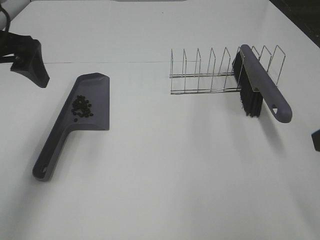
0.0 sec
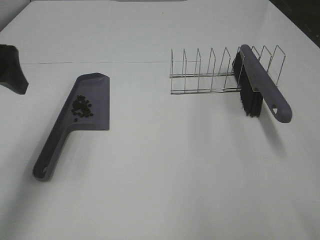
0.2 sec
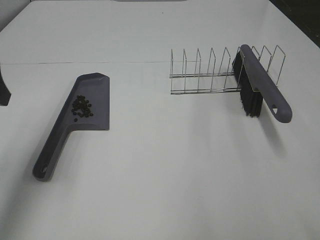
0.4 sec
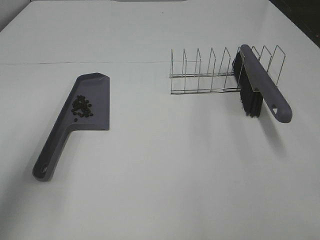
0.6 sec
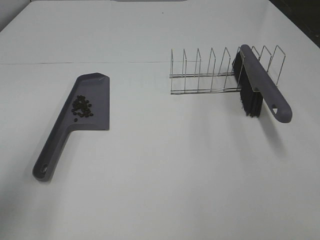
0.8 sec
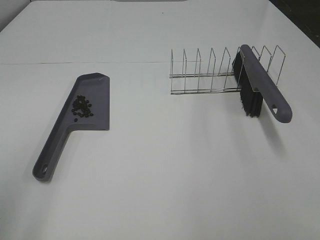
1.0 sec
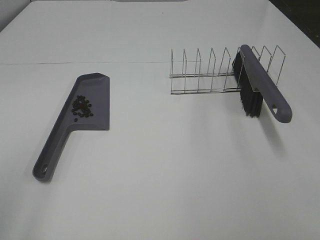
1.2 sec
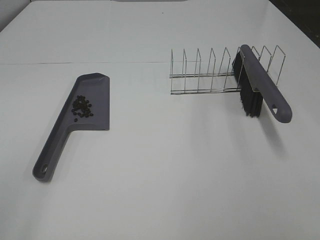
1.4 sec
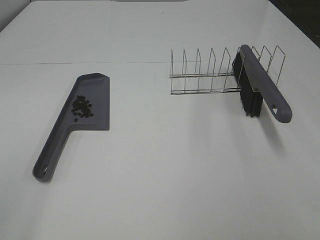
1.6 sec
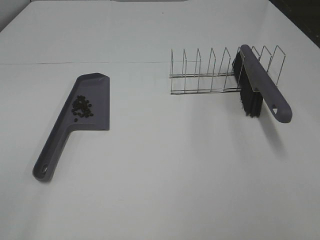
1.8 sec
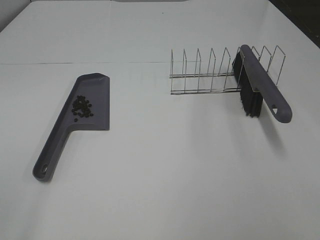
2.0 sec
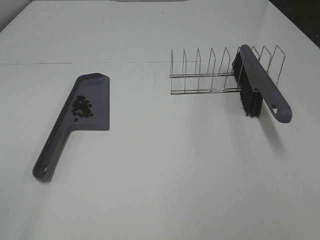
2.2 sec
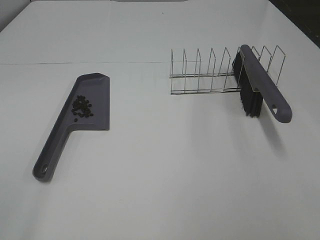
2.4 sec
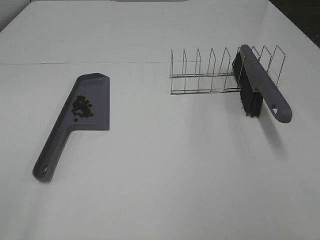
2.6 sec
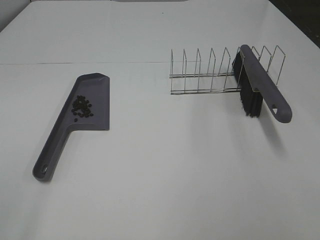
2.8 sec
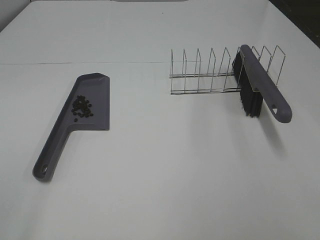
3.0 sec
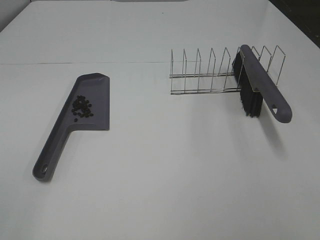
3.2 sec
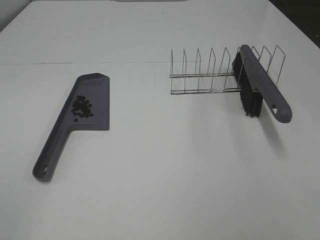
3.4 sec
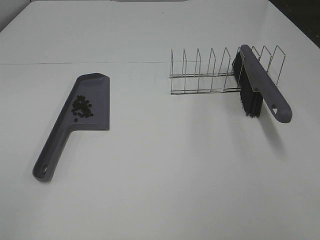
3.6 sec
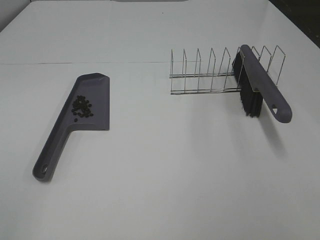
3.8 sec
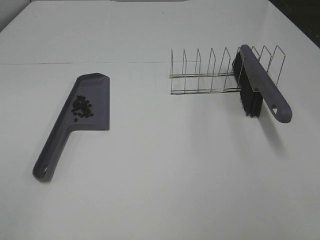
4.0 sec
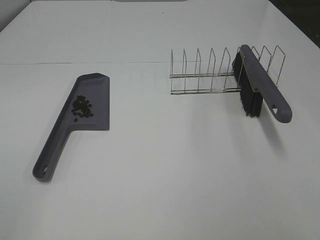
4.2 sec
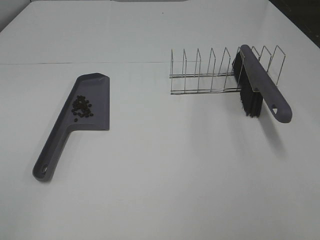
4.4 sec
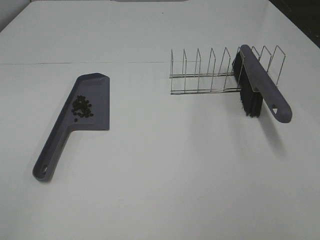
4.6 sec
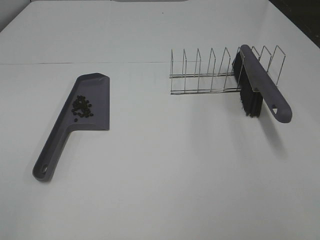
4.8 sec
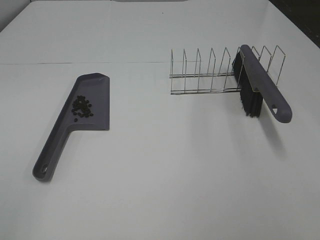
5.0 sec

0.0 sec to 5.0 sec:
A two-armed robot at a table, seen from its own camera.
Task of the whole recording: Sweep Coffee Bean.
0.0 sec to 1.6 sec: The left gripper is displaced backward by some 30 cm.
3.4 sec to 5.0 sec: The two grippers keep their place.

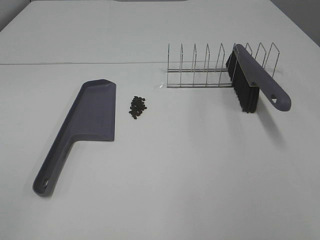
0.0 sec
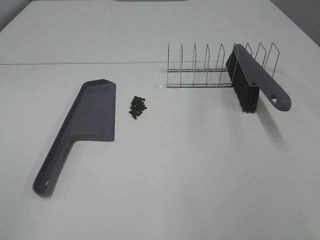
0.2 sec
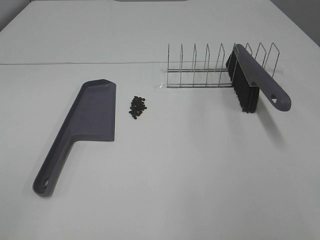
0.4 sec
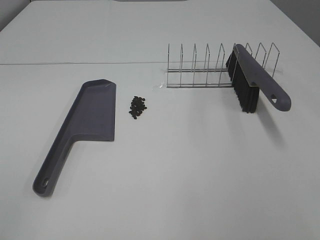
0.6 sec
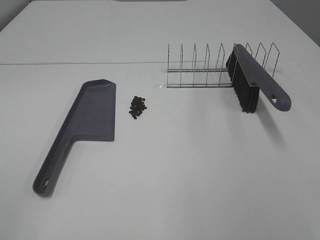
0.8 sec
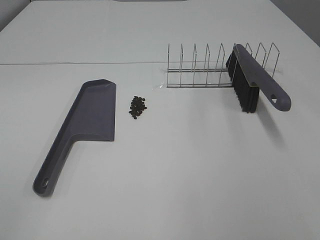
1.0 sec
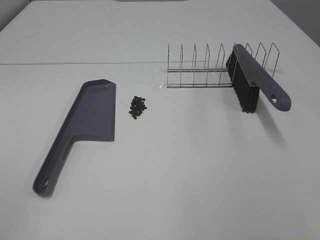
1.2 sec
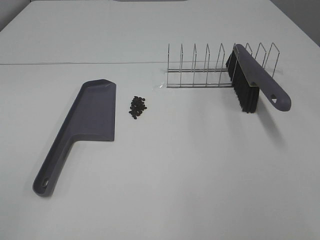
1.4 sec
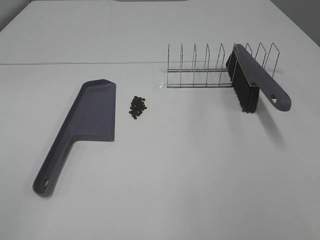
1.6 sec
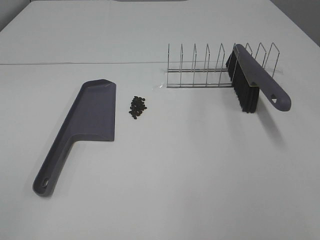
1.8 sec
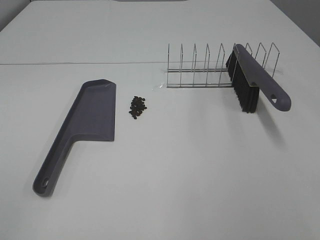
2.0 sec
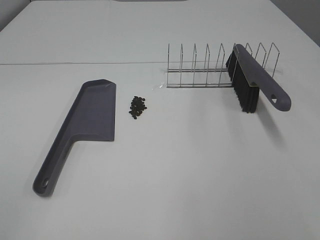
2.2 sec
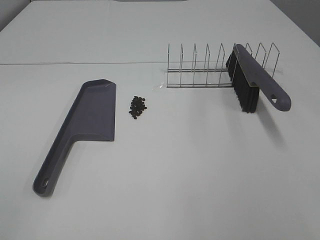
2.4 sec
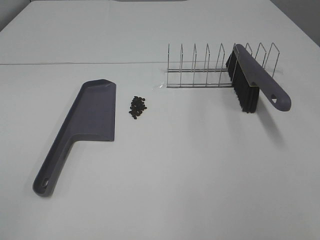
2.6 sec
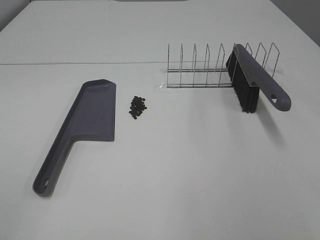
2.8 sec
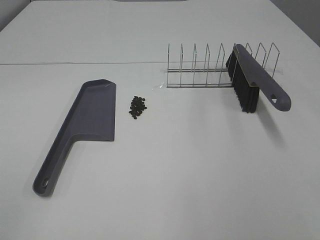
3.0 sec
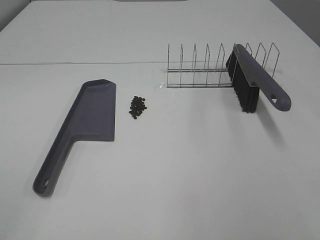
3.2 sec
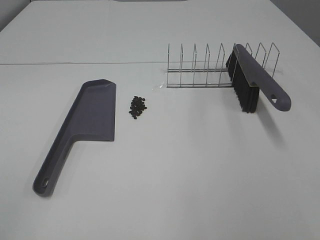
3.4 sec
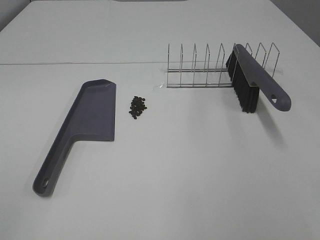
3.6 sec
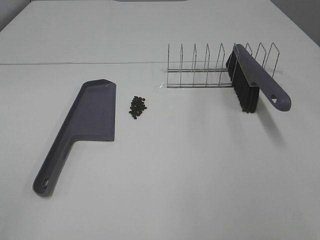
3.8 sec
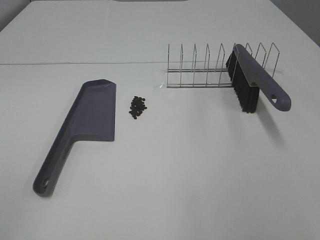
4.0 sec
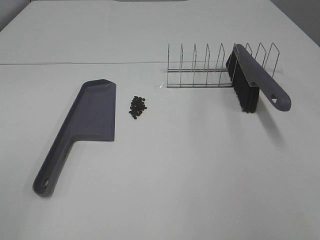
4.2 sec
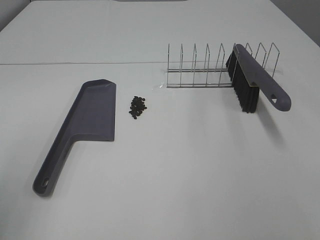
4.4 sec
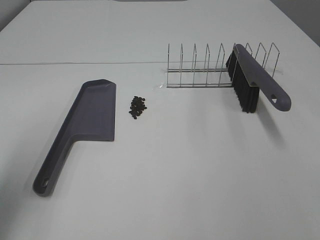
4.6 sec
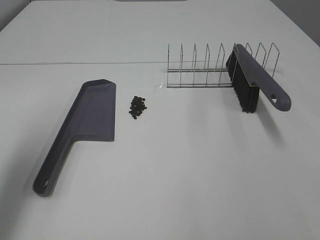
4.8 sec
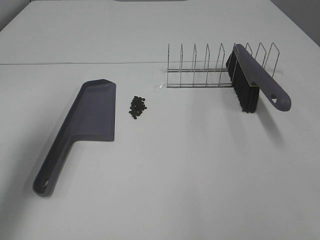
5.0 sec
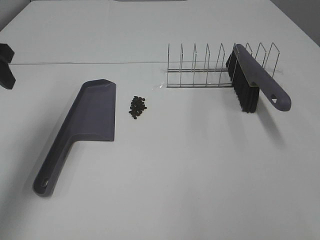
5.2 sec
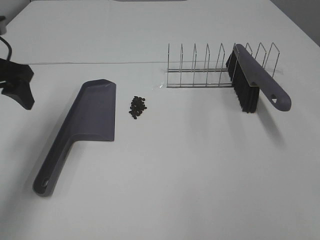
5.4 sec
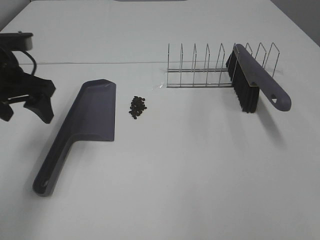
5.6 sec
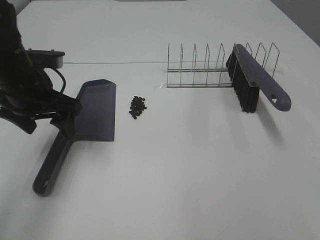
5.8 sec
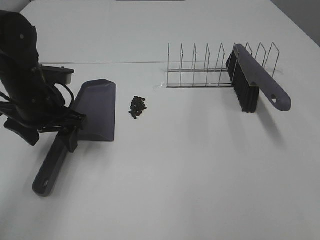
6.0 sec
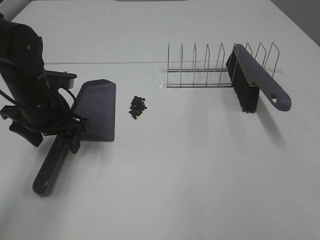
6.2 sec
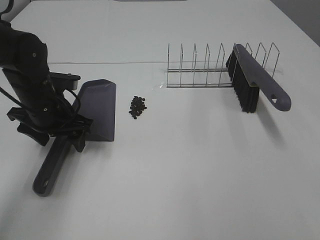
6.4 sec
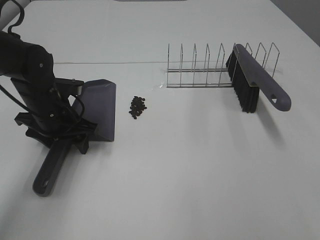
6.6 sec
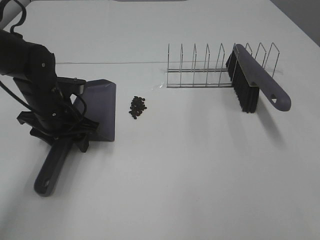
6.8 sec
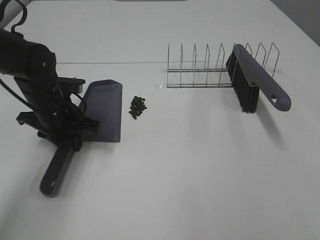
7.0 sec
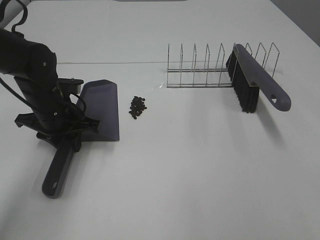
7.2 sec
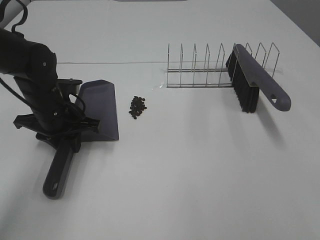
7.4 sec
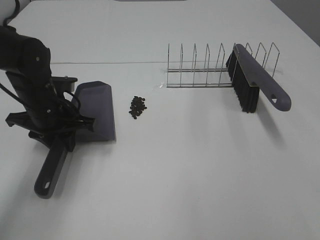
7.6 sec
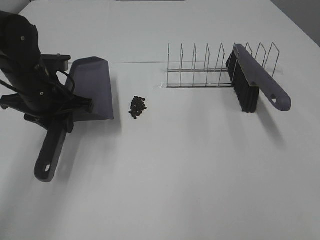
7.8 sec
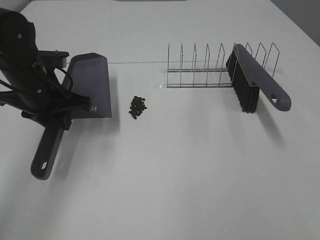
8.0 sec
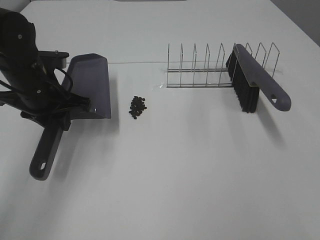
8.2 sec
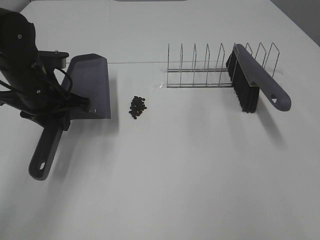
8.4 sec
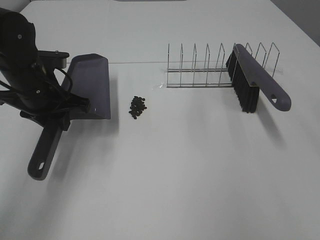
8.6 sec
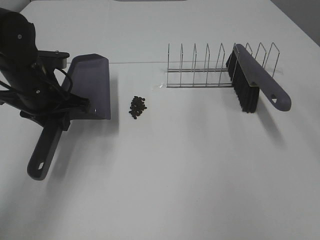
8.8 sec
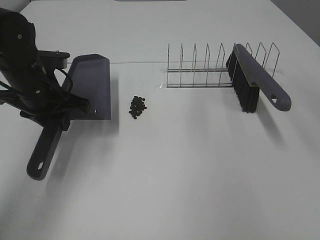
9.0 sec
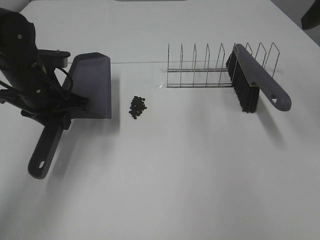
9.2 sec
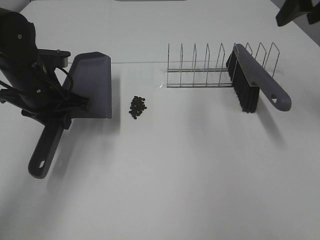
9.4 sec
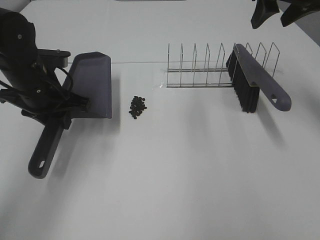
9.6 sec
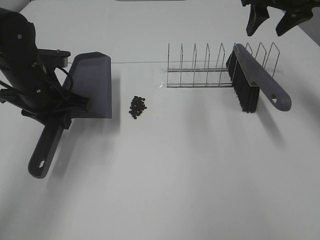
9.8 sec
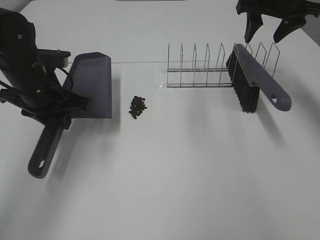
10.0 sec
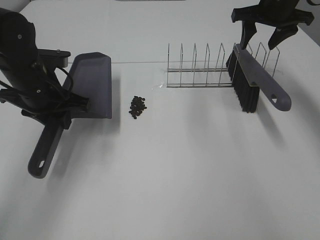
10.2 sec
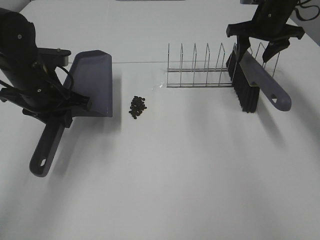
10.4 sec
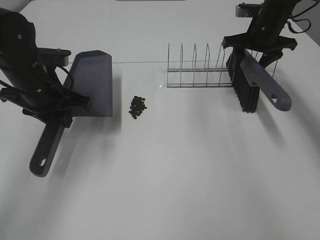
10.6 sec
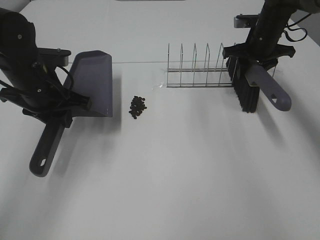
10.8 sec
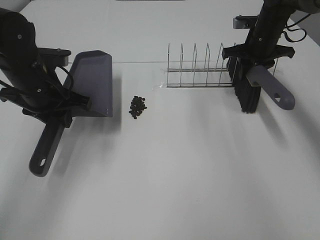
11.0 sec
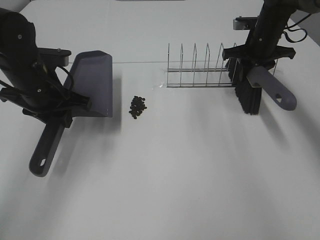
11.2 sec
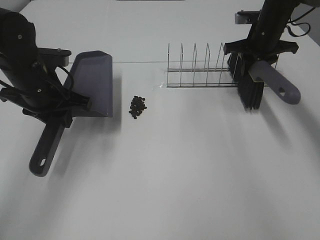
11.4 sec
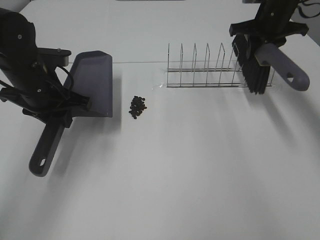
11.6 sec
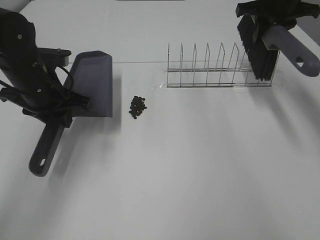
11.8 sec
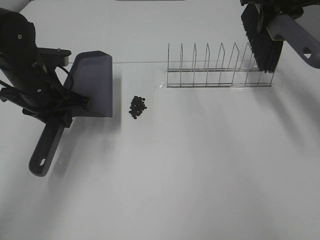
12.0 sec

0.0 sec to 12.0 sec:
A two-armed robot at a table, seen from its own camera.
Task of the whole recording: Sweep Coffee Bean.
Step, 0.0 sec to 7.2 sec: Left hand: grab the dustpan.
Step, 8.0 sec to 10.8 sec: Right hand:grab the broom.
0.0 sec to 3.0 sec: Both grippers stay put.
4.4 sec to 6.0 sec: The left gripper heads forward, downward and to the right, covering some 30 cm, and opens its fingers.
6.0 sec to 7.6 sec: The left gripper closes up.
7.6 sec to 9.0 sec: The right gripper is displaced forward by approximately 25 cm.
9.0 sec to 10.4 sec: The right gripper shifts roughly 25 cm forward and downward.
10.4 sec to 12.0 sec: The right gripper heads upward, covering about 5 cm, and closes its fingers.

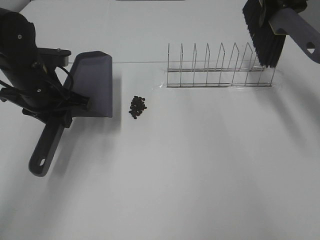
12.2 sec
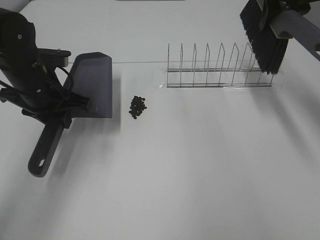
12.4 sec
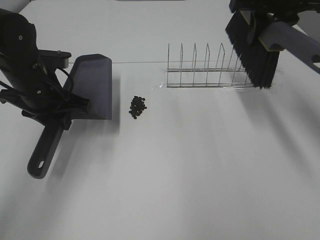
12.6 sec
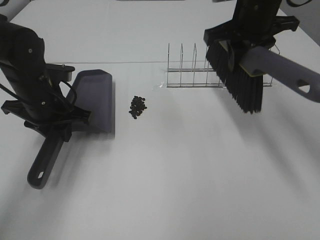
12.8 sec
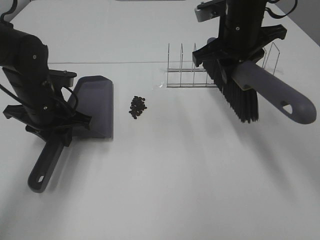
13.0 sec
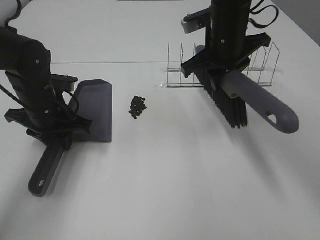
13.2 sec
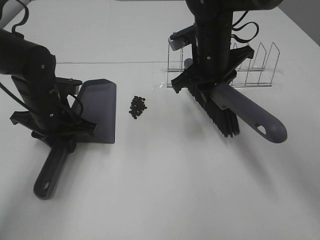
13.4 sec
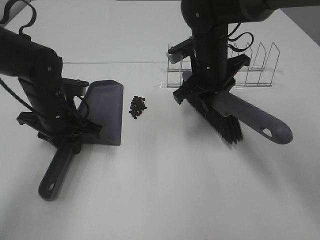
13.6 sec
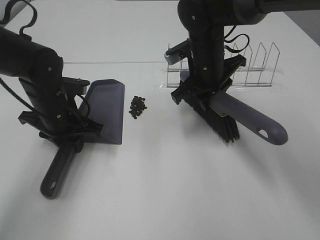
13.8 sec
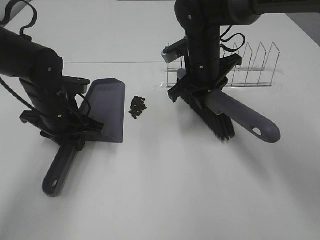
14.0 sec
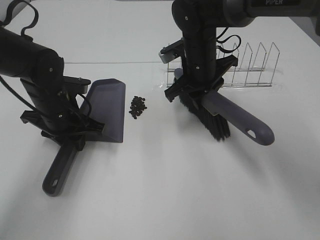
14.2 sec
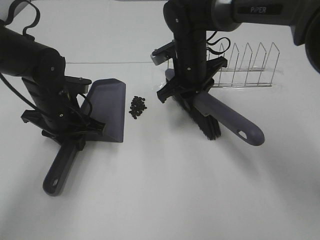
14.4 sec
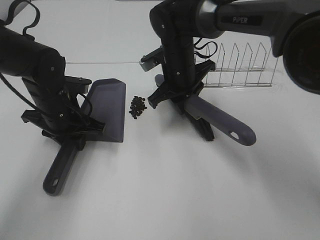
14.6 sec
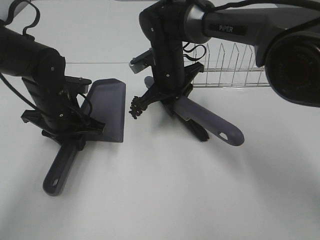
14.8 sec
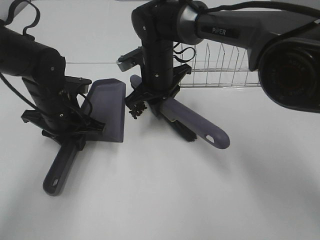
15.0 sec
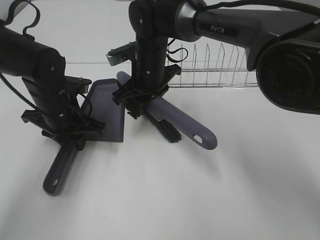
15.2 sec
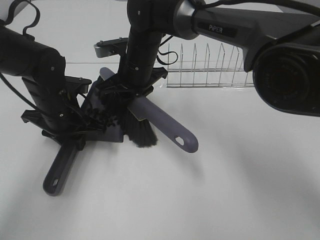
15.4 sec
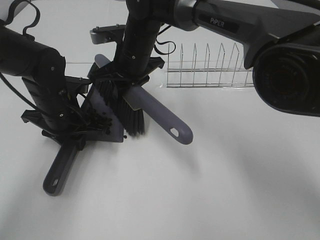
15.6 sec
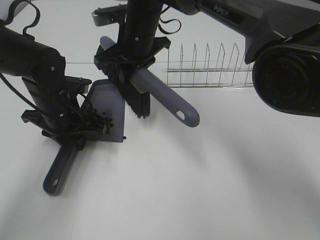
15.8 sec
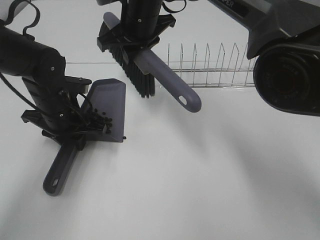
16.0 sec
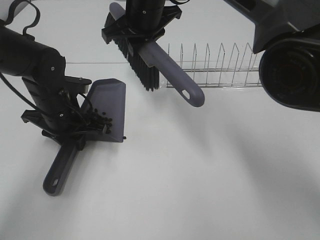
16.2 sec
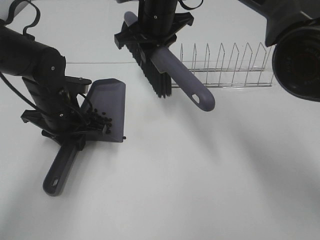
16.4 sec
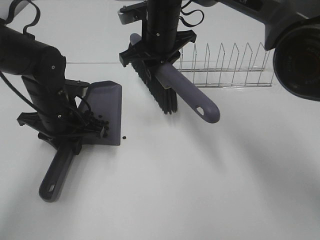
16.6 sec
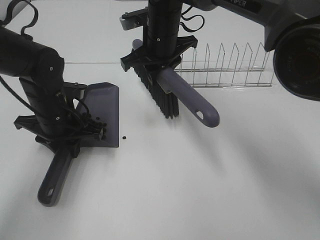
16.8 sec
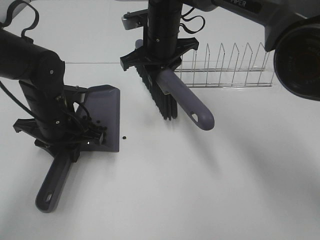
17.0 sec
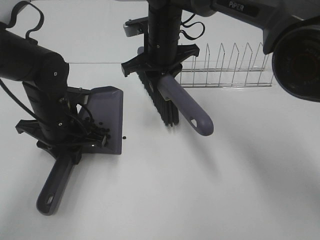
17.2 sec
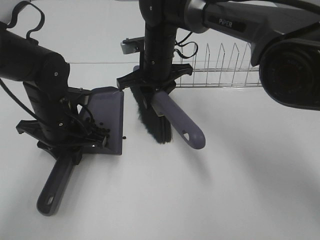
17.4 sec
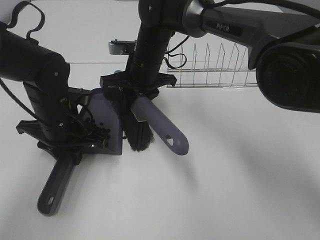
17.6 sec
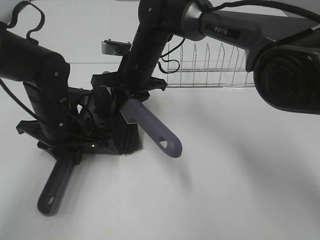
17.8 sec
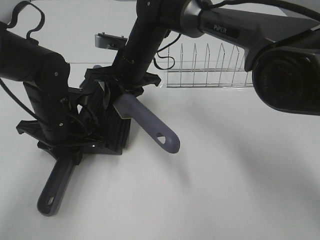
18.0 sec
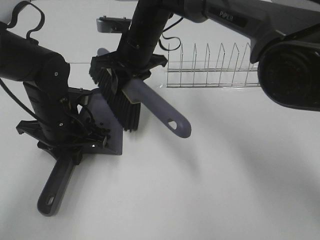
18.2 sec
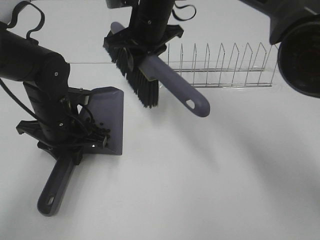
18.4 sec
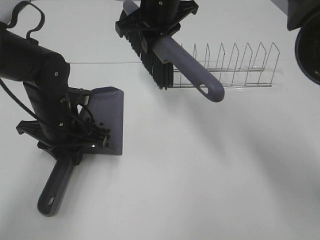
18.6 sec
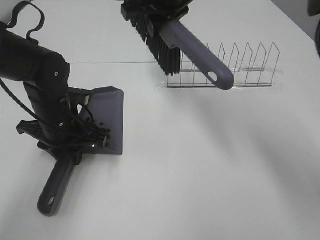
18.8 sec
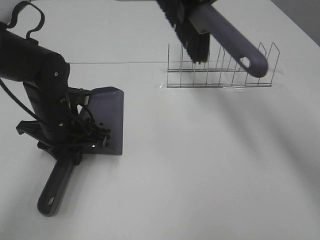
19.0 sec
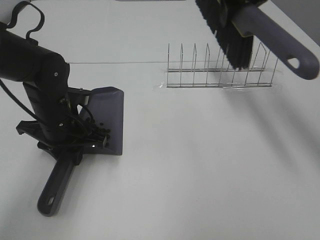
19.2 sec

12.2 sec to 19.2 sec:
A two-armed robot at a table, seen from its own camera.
Task of the whole recording: Sweep Coffee Bean.
Step, 12.2 sec to 18.2 sec: Right hand:sweep the coffee beans into the dustpan.
12.2 sec to 13.6 sec: The right gripper shifts approximately 20 cm to the left, downward and backward. The left gripper shifts some 5 cm downward.
13.6 sec to 15.0 sec: The right gripper travels to the left by roughly 10 cm.
15.0 sec to 16.4 sec: The right gripper moves upward, about 10 cm.
16.4 sec to 17.8 sec: The right gripper goes approximately 10 cm downward.
17.8 sec to 19.2 sec: The right gripper goes about 25 cm to the right and upward.
